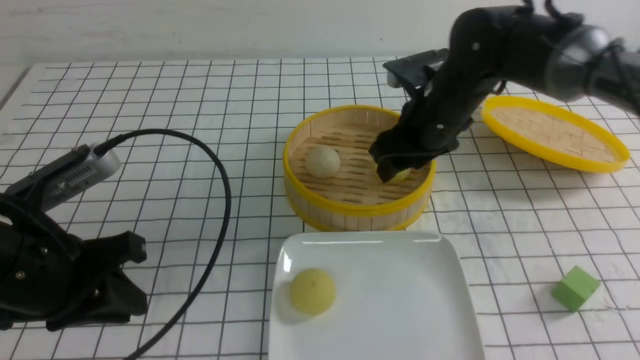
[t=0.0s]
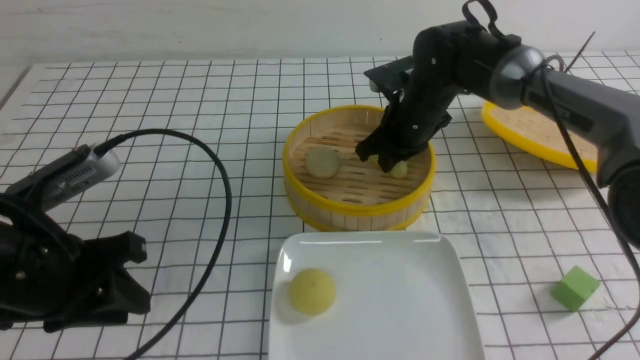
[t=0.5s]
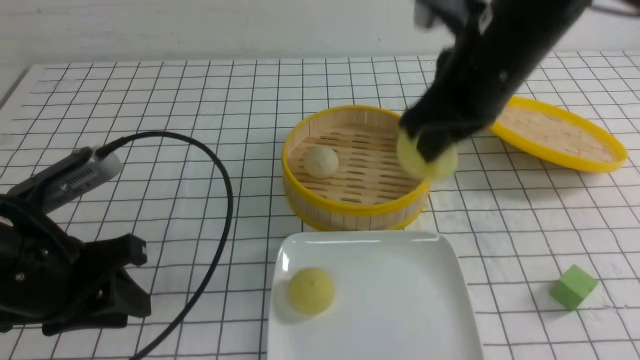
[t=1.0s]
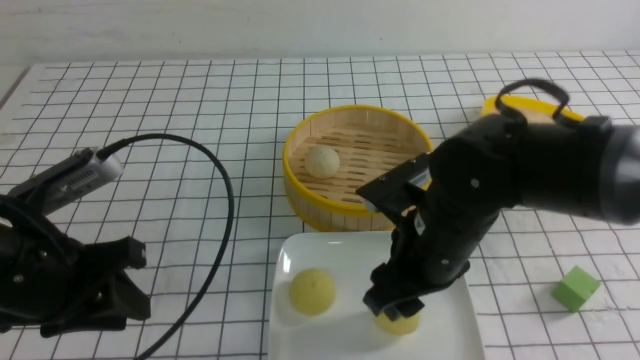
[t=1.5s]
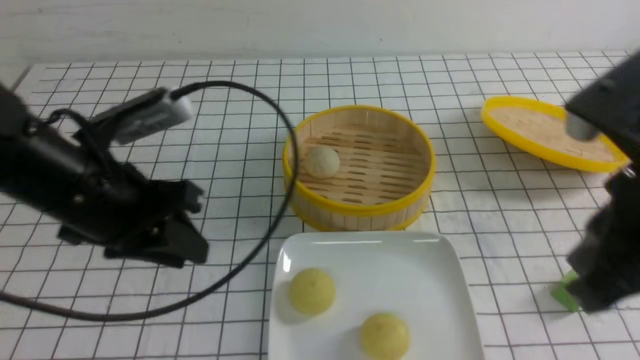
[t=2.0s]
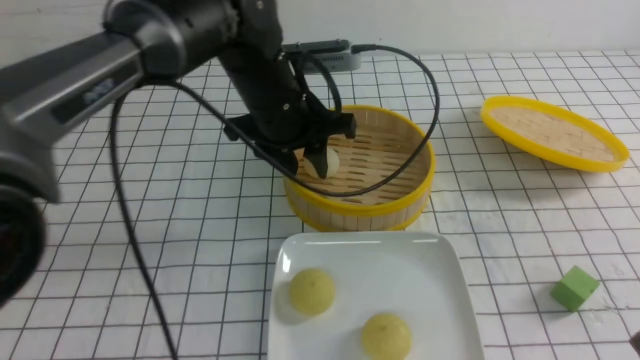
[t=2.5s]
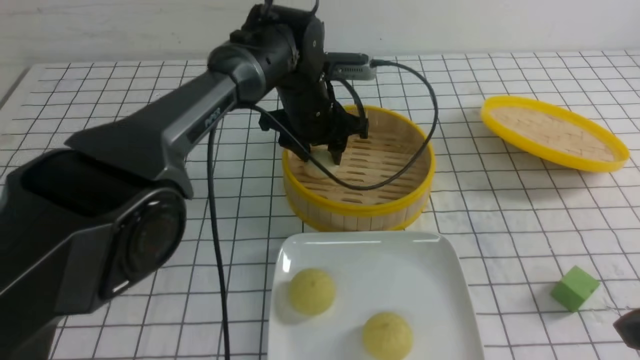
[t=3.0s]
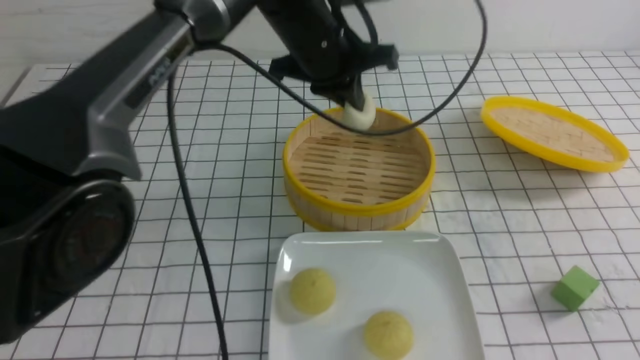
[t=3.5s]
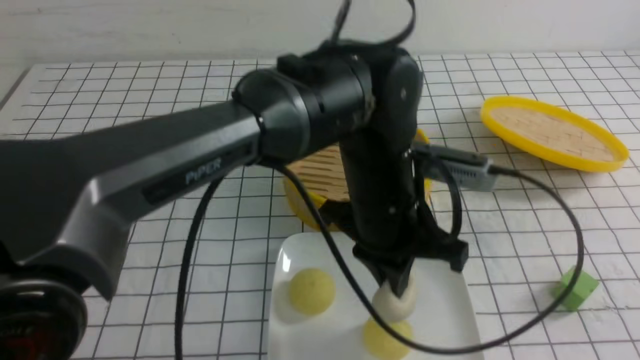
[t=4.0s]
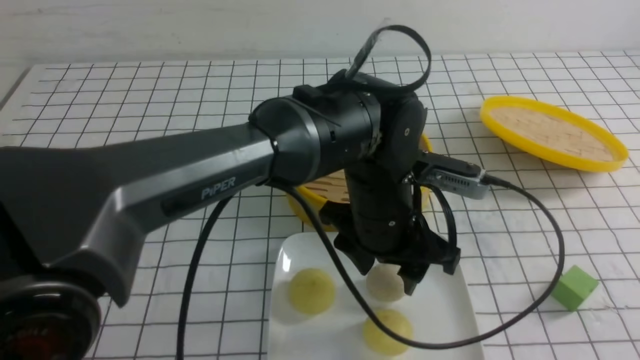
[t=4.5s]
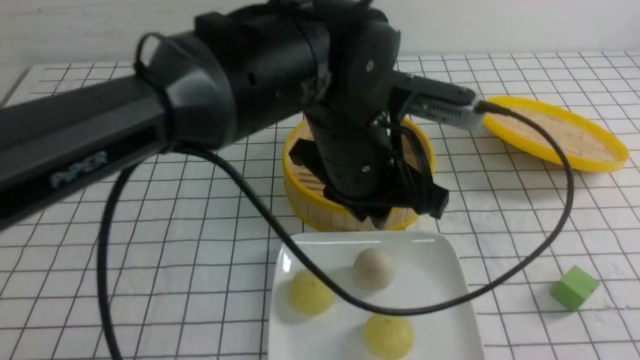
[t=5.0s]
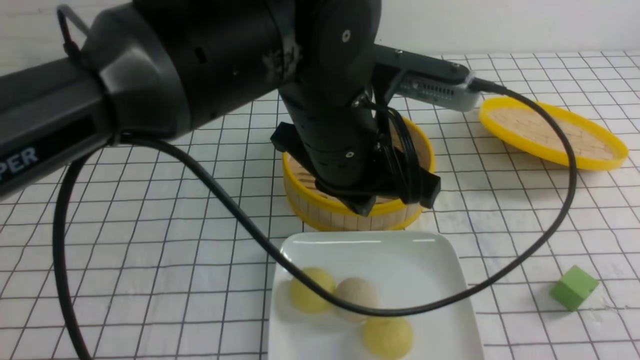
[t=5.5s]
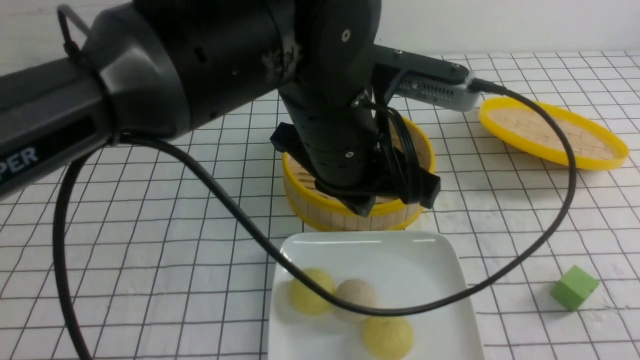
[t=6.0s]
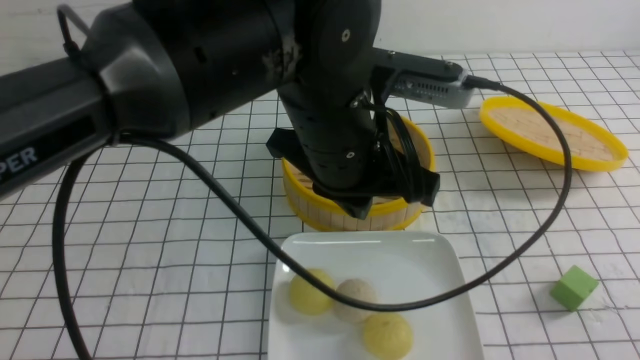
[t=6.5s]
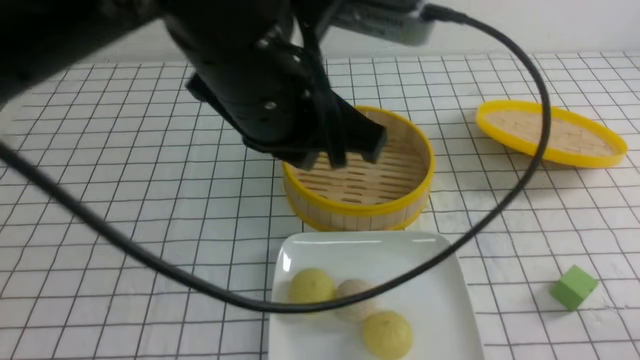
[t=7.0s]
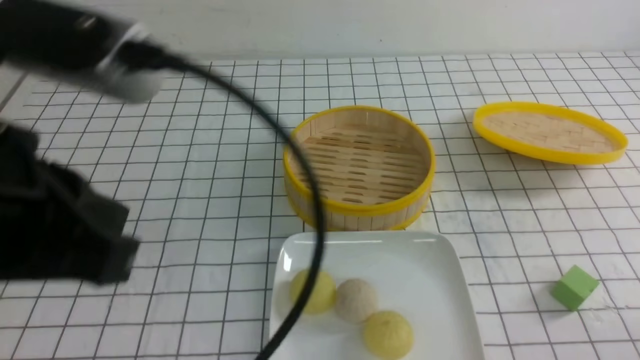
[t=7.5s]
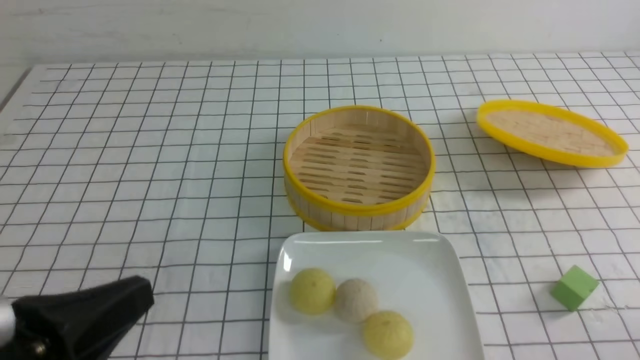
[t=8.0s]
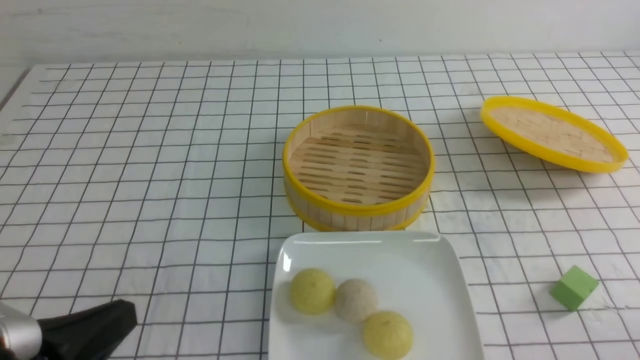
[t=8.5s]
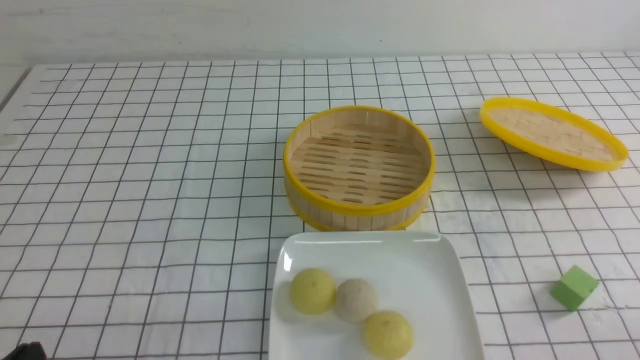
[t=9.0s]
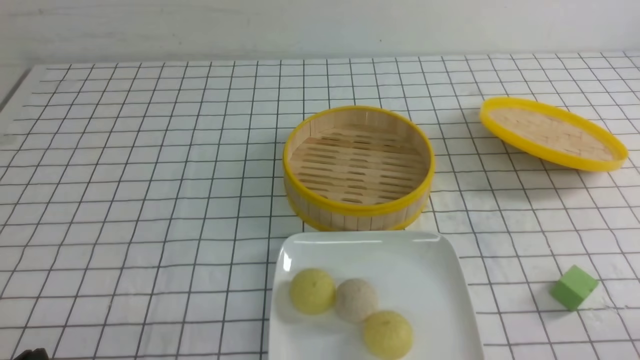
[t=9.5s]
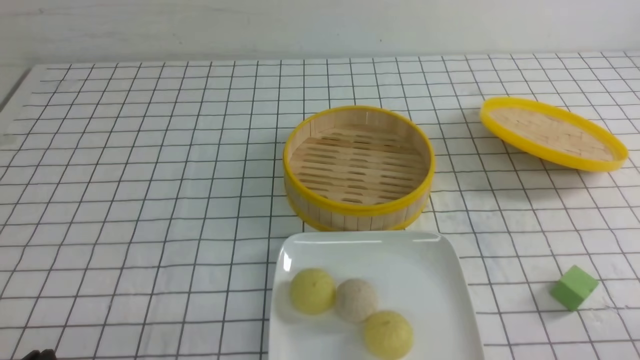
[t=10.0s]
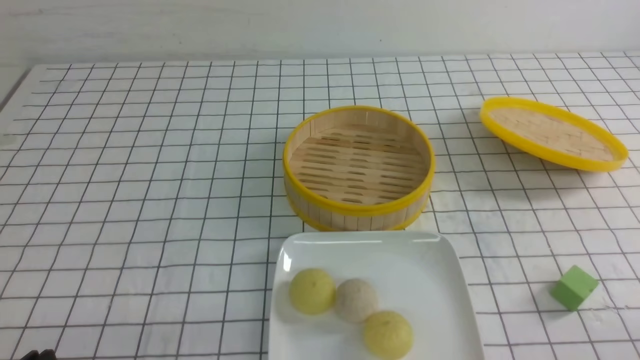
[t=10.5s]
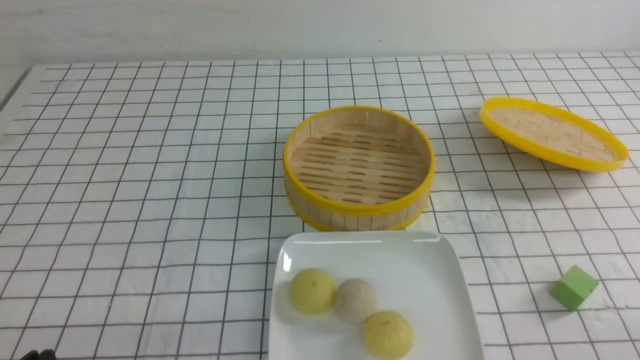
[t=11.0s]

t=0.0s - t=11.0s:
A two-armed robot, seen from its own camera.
Step, t=1.0s - t=1.5s: use the right arm to put the steamed stuffed bun into the plate.
Step, t=2.0s - t=3.0s: use the left arm to grab the steamed stuffed bun that is closest to it.
Step, t=3.5s - t=4.5s: use the left arm to put the steamed stuffed bun into the plate.
t=0.0s - t=2.0s: The left gripper shifts some 10 cm forward and to the right; the right gripper shifts some 30 cm backward and upward, and closes up.
t=2.0s - t=3.5s: The left gripper shifts approximately 25 cm to the right and forward, and closes; the right gripper shifts approximately 10 cm backward and to the right.
t=3.5s - t=5.5s: The left gripper is displaced backward by approximately 15 cm, and opens, then closes again. Meanwhile the right gripper is displaced downward and backward by some 10 cm.
t=5.5s - t=7.5s: The right gripper shifts about 10 cm downward. Meanwhile the left gripper goes roughly 25 cm to the left and backward.
t=7.5s - t=9.0s: The left gripper is displaced downward and to the left by some 25 cm.
t=9.0s - t=11.0s: The two grippers keep their place.

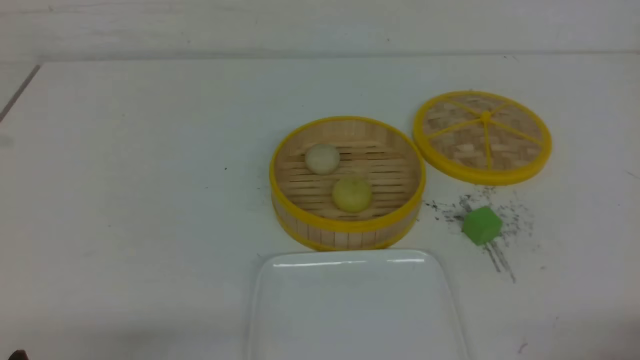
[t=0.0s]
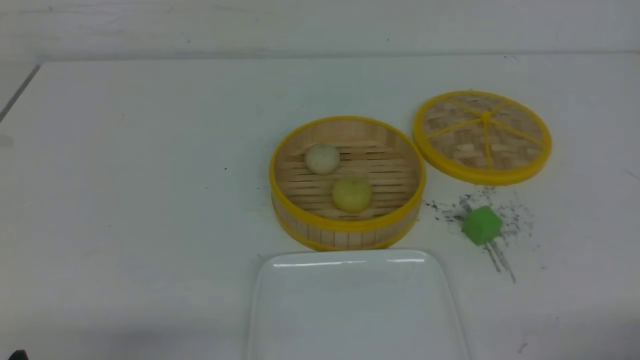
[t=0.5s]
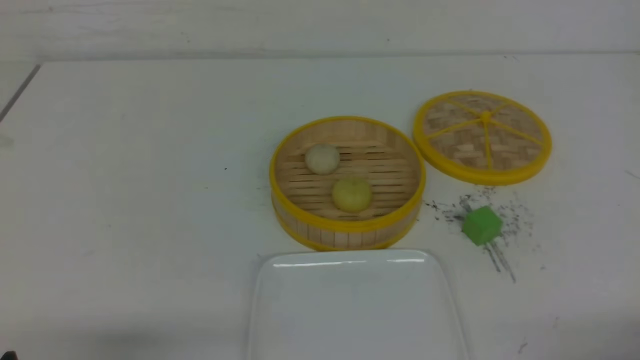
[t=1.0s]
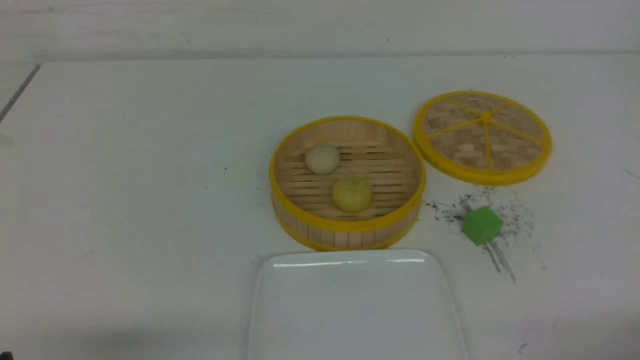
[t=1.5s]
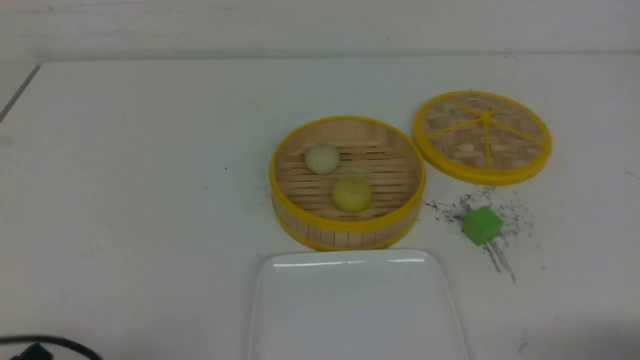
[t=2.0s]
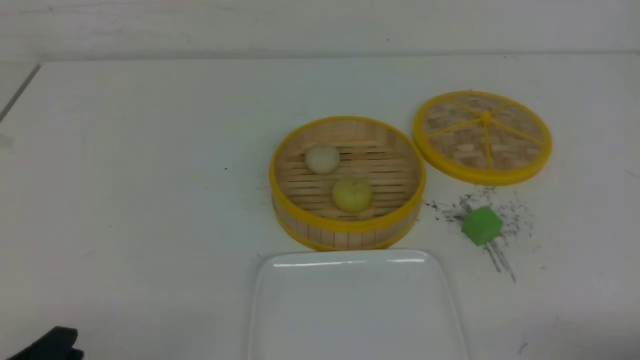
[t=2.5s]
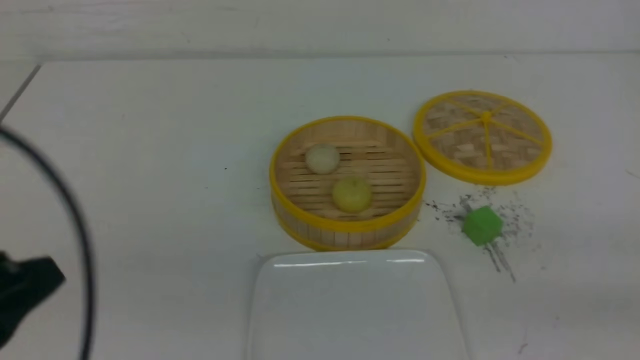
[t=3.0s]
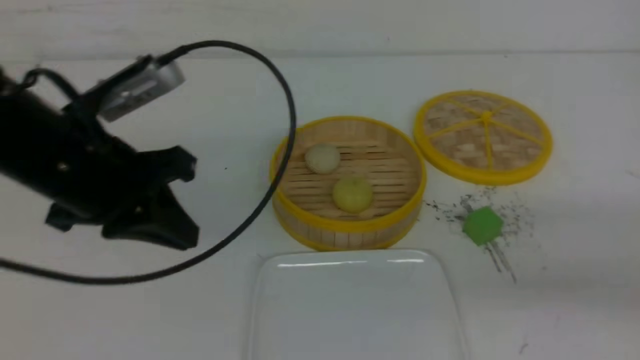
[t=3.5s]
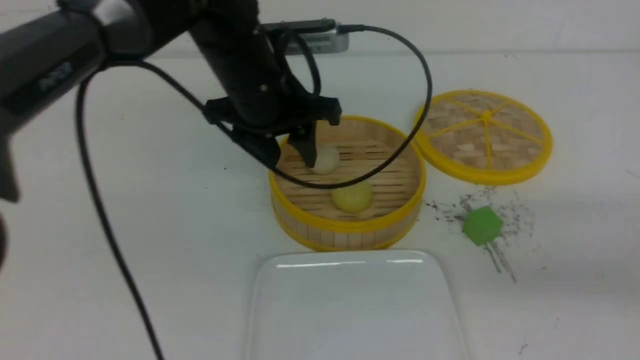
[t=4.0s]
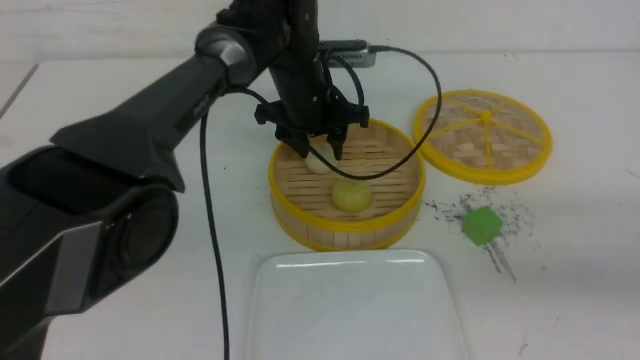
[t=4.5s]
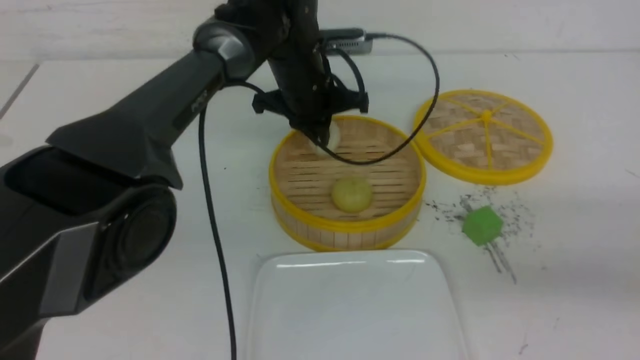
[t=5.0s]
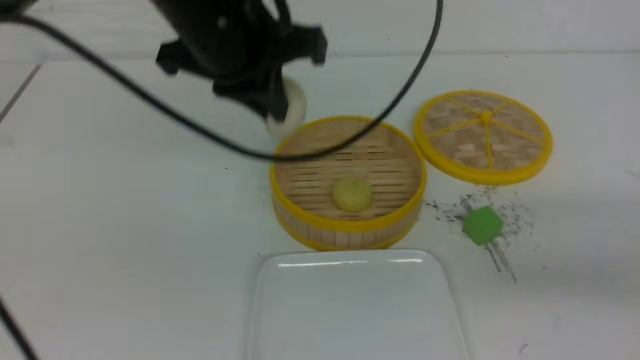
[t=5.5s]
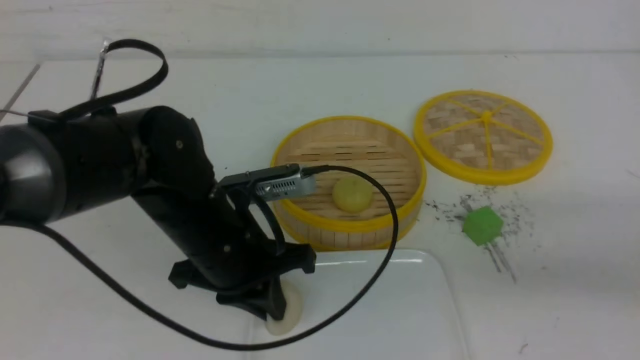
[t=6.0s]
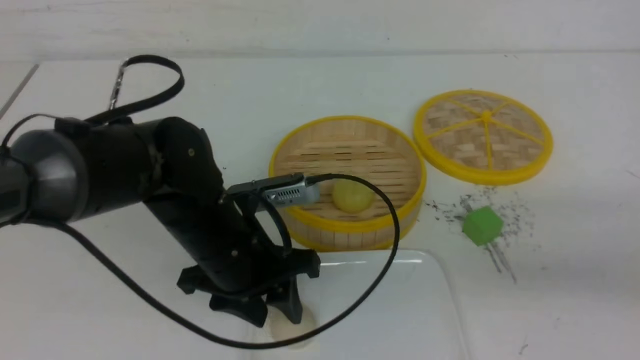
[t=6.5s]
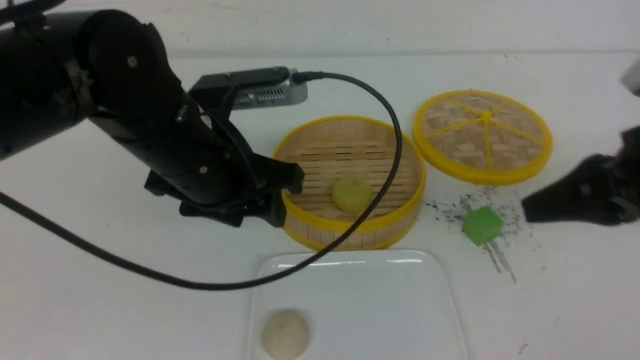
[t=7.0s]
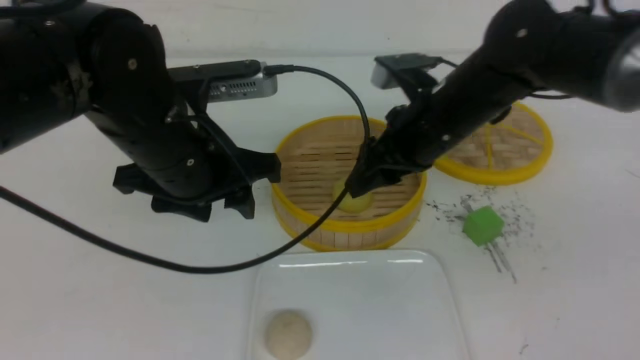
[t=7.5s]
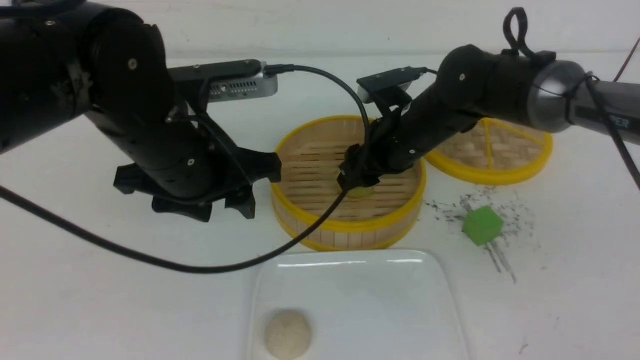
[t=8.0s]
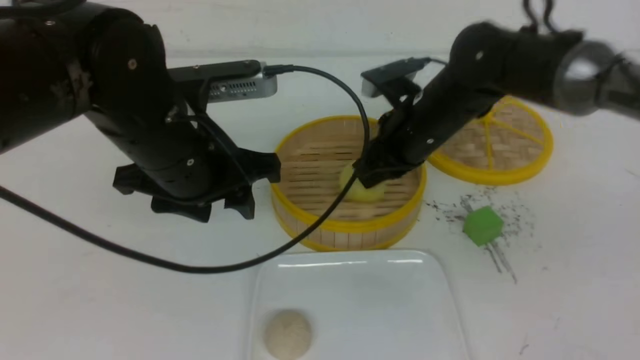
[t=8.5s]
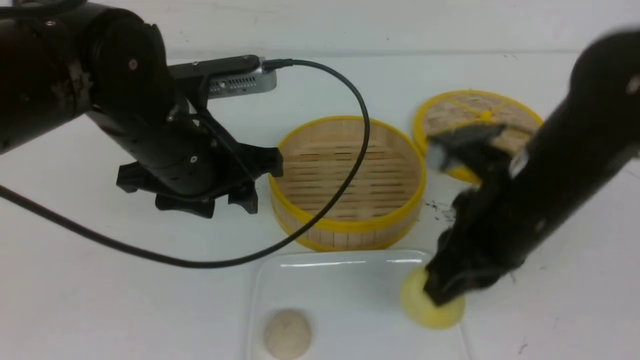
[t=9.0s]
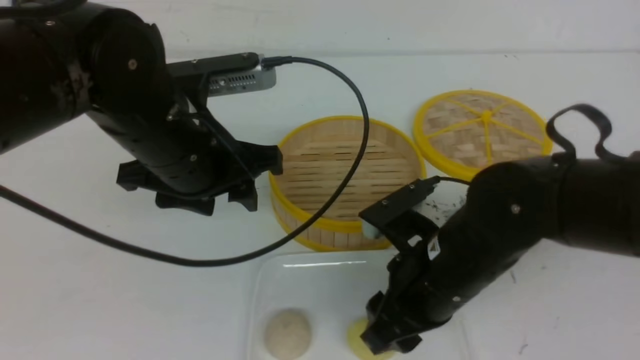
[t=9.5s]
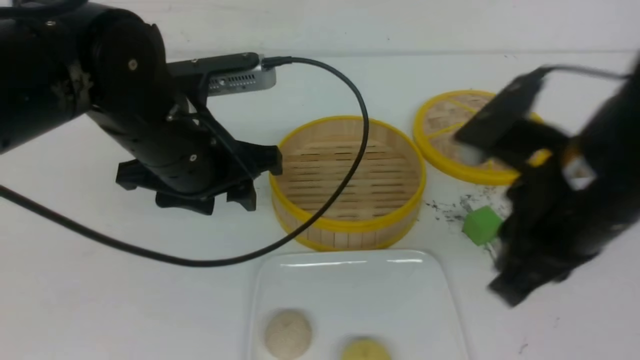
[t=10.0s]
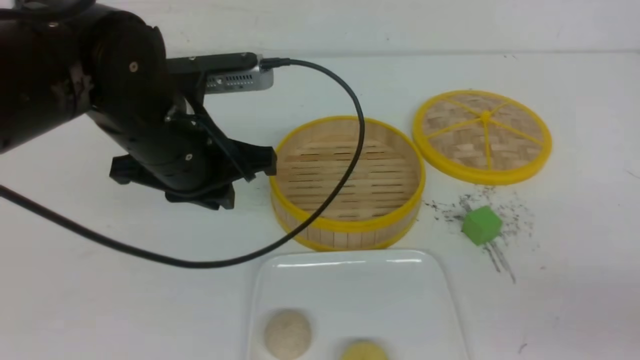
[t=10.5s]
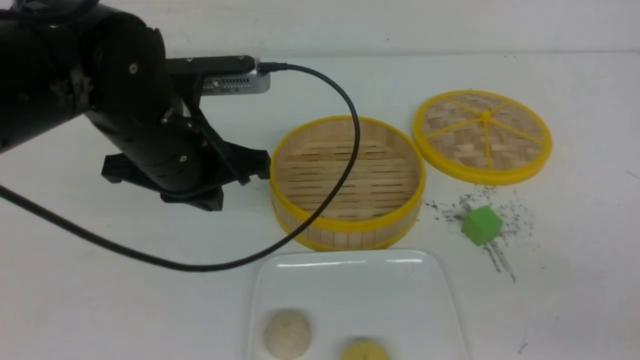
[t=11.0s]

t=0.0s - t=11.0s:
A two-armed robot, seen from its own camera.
Step, t=0.0s - t=4.5s: use the left arm to grab the steamed stuffed bun that is closest to it.
Step, t=5.0s - t=6.5s: use the left arm to put the steamed stuffed bun into the plate.
Step, t=7.0s - t=8.0s: use the right arm to grab the steamed stuffed bun that is closest to it.
Step, t=8.5s - t=9.5s: use the right arm to put the steamed stuffed bun into the plate.
t=2.0s - t=3.5s: The right gripper heads upward and forward, covering about 15 cm, and closes its fingers; the left gripper shifts some 25 cm forward, upward and to the right, and closes.
t=3.5s - t=5.5s: The left gripper travels to the right and forward by about 10 cm, and opens, then closes again.
t=5.5s - t=7.5s: The right gripper is displaced forward and to the left by about 30 cm, and opens its fingers. Meanwhile the left gripper opens its fingers.
t=7.5s - t=9.0s: The right gripper shifts approximately 10 cm backward, and closes its fingers.
t=9.0s - t=11.0s: The right gripper is displaced backward and to the right by approximately 25 cm, and opens, then closes again. Meanwhile the left gripper closes.
